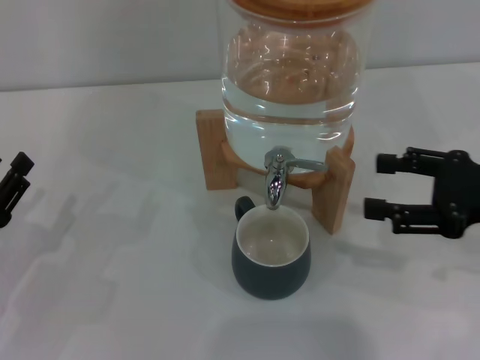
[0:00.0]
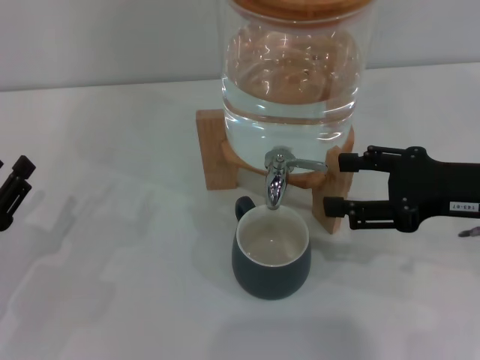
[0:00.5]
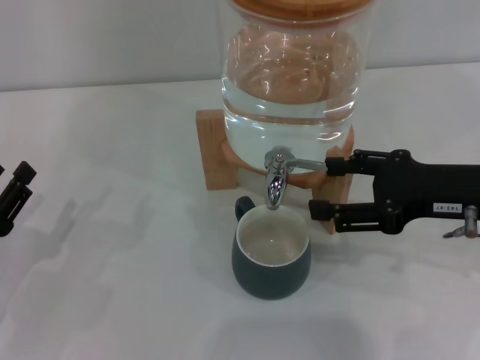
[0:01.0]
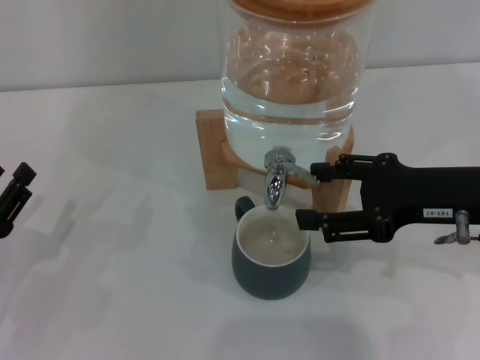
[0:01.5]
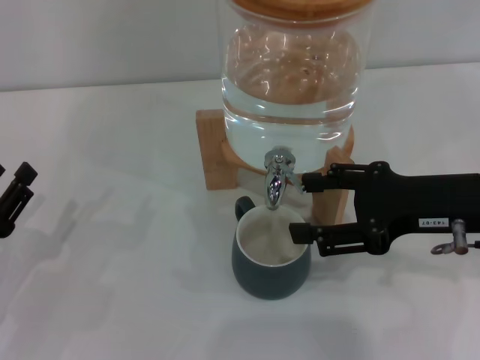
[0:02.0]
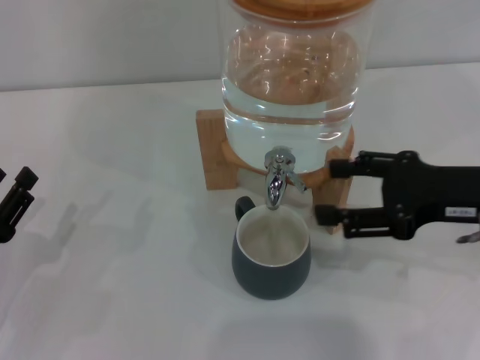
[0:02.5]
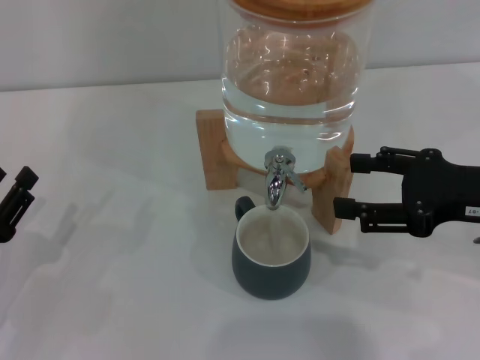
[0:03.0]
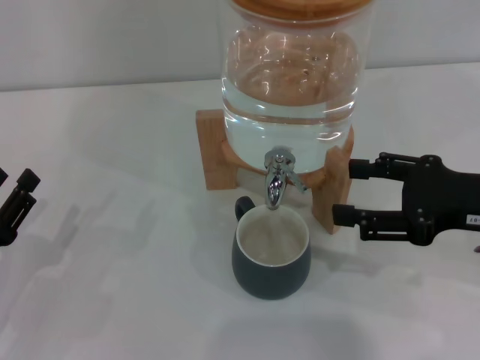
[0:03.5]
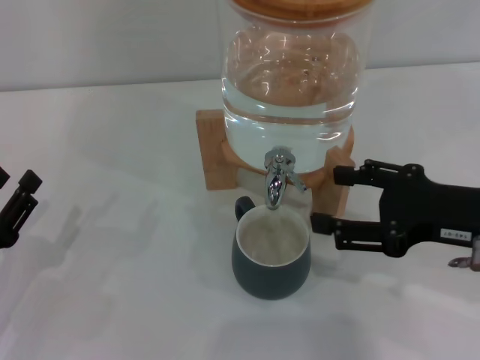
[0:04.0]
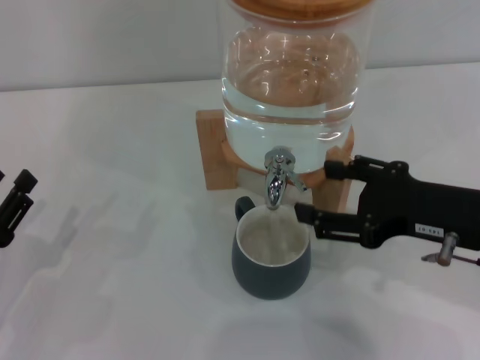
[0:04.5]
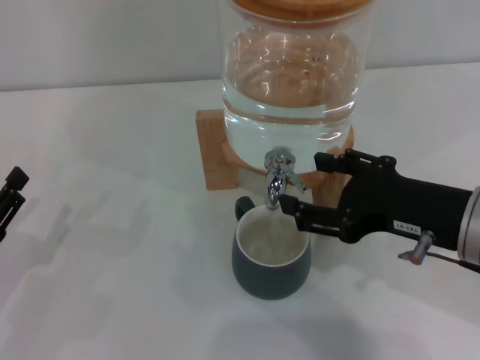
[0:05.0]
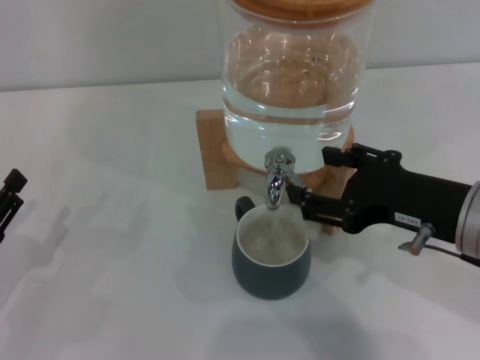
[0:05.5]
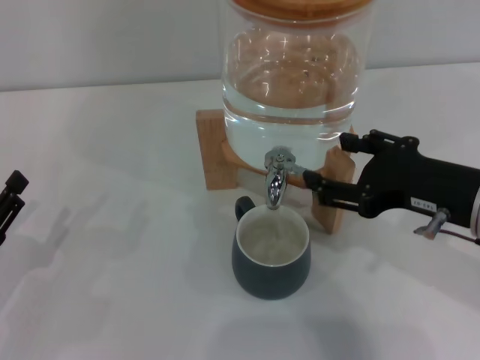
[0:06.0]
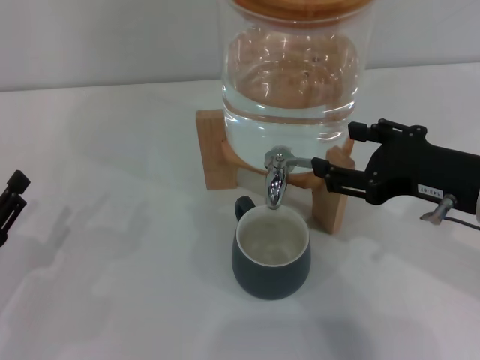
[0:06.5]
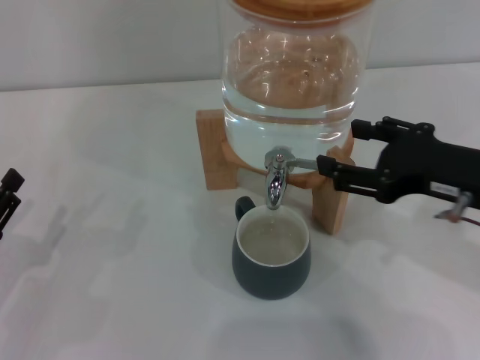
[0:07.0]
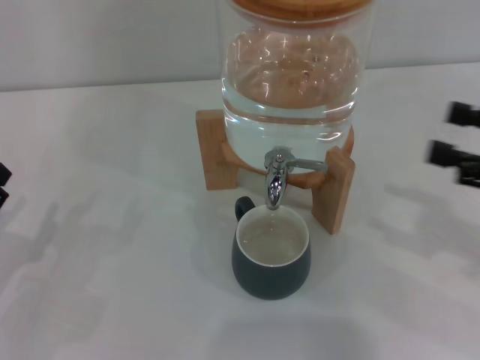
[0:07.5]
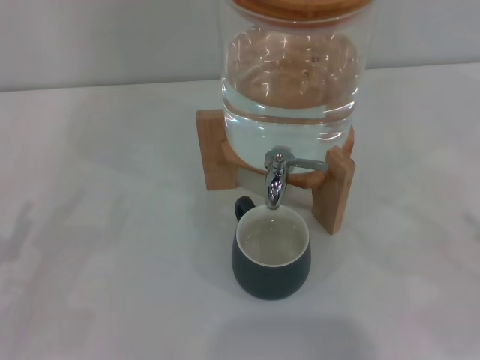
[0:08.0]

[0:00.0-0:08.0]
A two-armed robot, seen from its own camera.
Task of the whole recording: the left gripper pick up the black cup and place it horizontally under the faucet, the right gripper turn on the faucet to fill the cup, and then turn off the faucet.
Step, 0:00.0 to 0:02.5: Open the dispenser valve and fill the cup with water with the right gripper.
Step, 0:03.0 to 0:07.0: Close the dispenser valve with the right gripper.
0:00.0 to 0:02.0: The right gripper is displaced to the left by some 5 cm.
0:02.0 to 0:04.0: There are only small adjustments of the grippers.
0:04.0 to 0:06.0: The grippers move only a little.
0:06.0 to 0:08.0: The right gripper is displaced to the right by about 20 cm.
